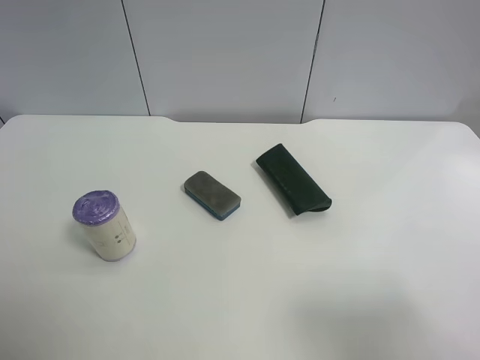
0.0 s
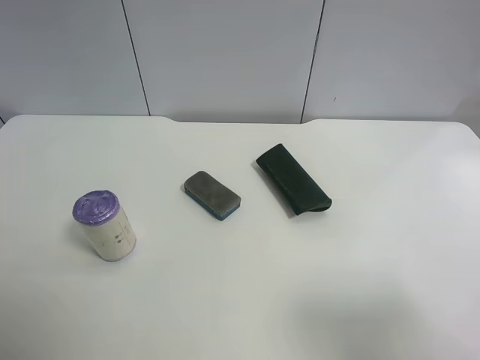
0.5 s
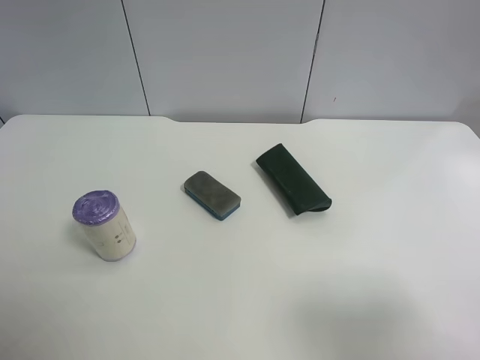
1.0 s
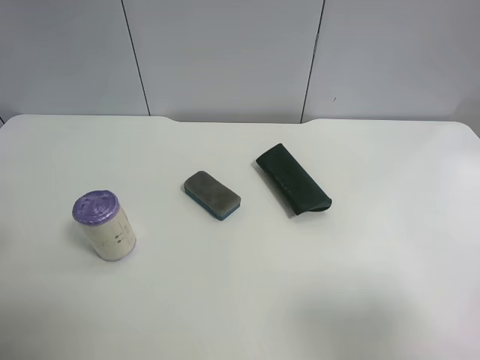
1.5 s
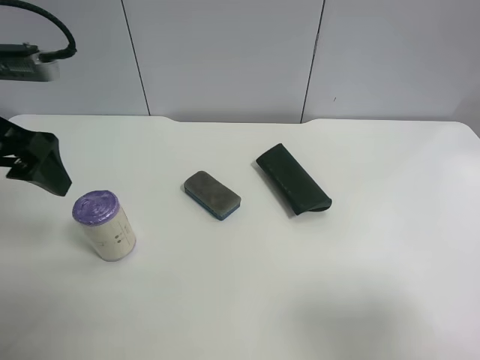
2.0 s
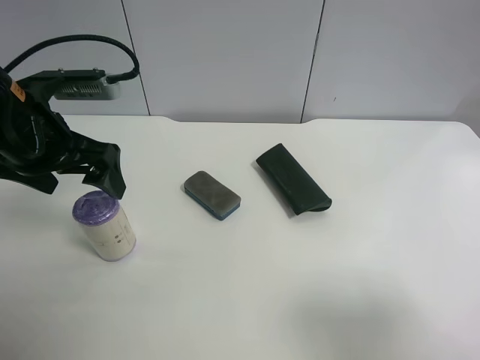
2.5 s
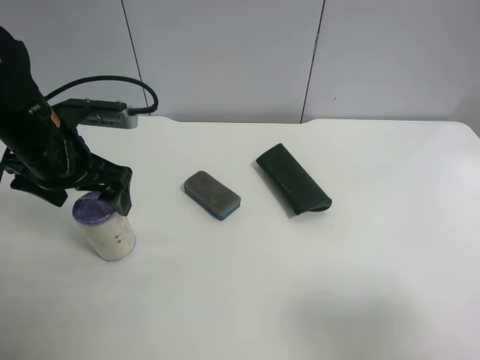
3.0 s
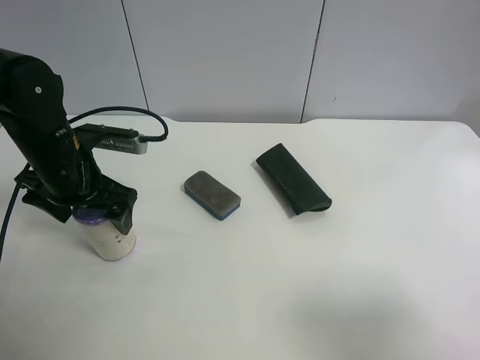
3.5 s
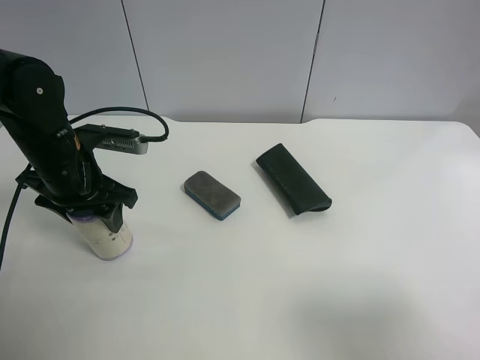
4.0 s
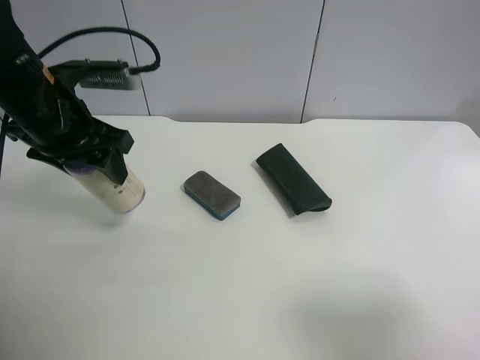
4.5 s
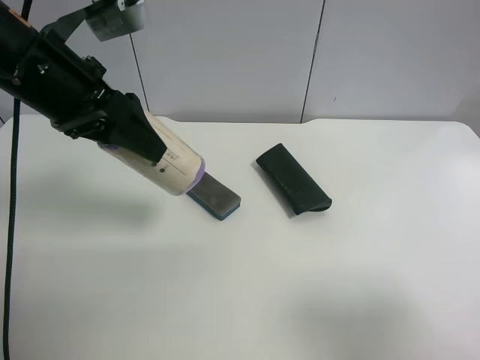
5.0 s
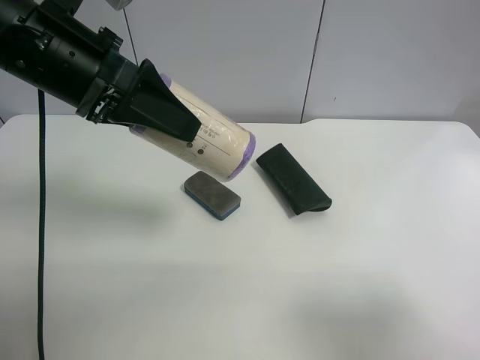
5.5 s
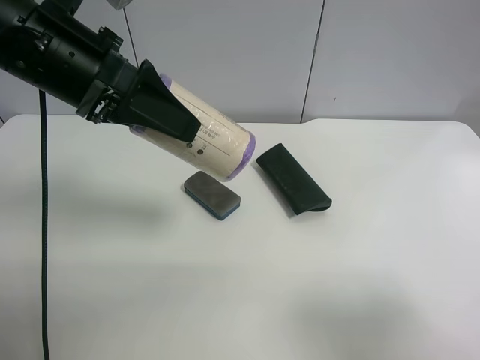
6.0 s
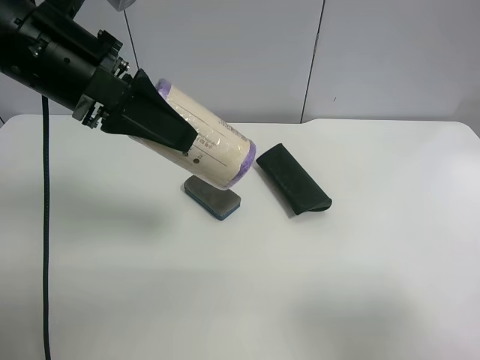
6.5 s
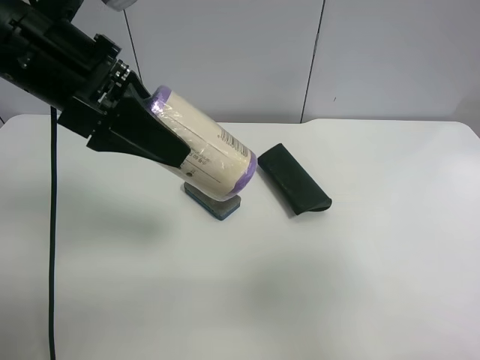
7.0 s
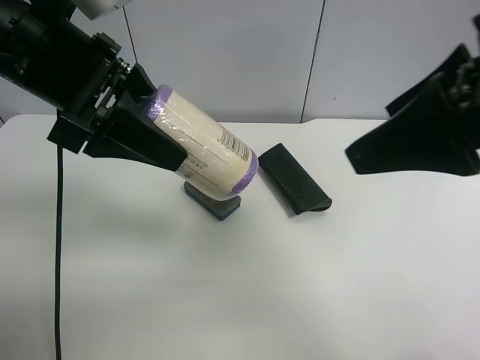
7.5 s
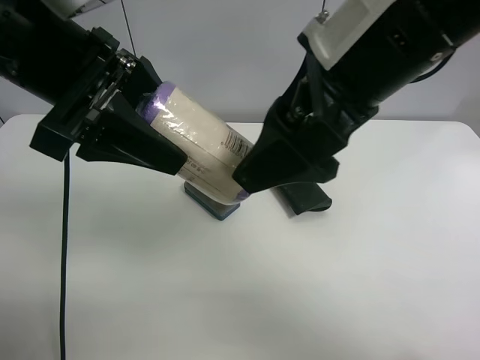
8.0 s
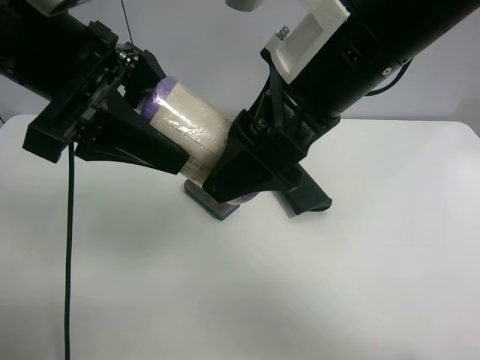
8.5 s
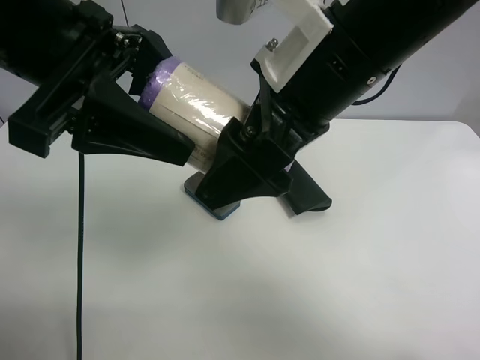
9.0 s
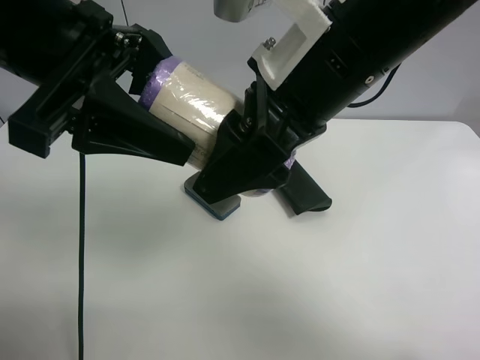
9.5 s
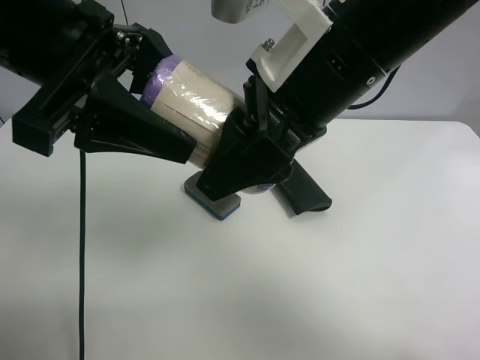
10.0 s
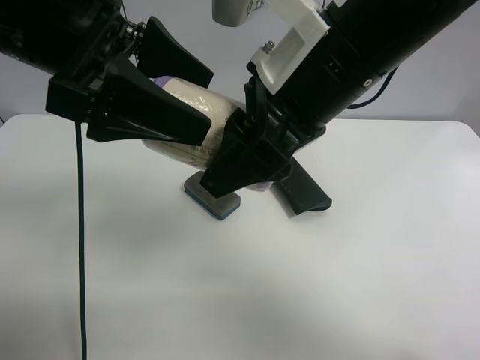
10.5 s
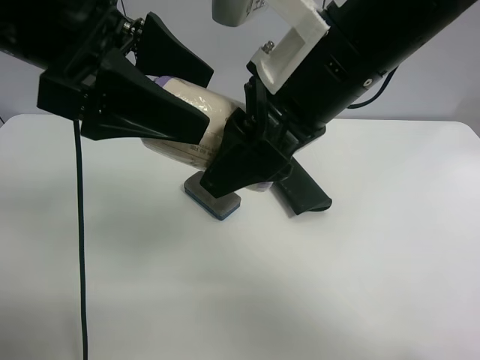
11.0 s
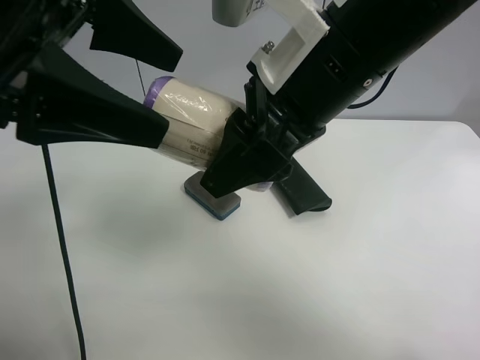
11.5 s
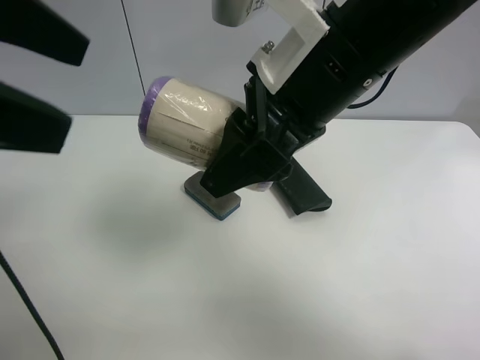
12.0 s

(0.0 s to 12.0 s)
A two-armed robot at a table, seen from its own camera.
Task of the whole recording: use the left gripper to pick up the item and transfer it from the left gripper to the right gripper.
0.0 s - 2.0 s: The left gripper shifts some 20 cm forward.
2.0 s - 4.0 s: The left gripper shifts roughly 15 cm downward and forward, and closes.
4.0 s - 6.0 s: The left gripper moves upward, some 15 cm.
6.0 s - 8.0 s: The right gripper is displaced to the left and forward by approximately 30 cm.
8.0 s - 10.0 s: The right gripper closes up.
10.0 s - 12.0 s: The left gripper goes some 15 cm backward, upward and to the left, and opens.

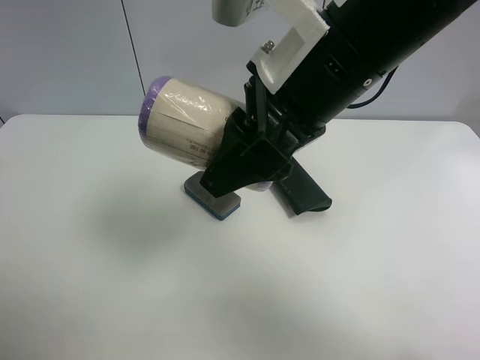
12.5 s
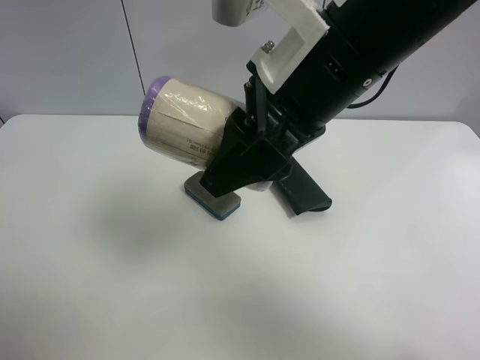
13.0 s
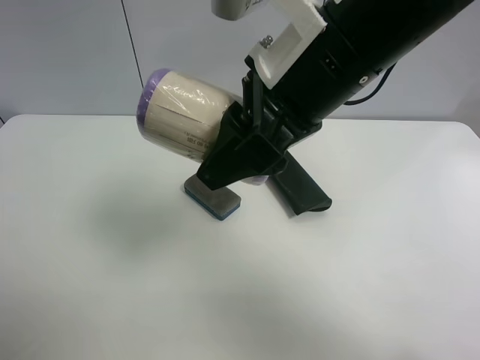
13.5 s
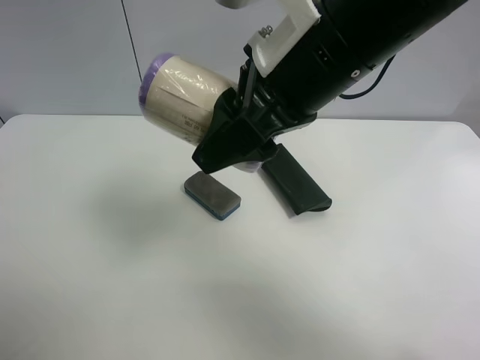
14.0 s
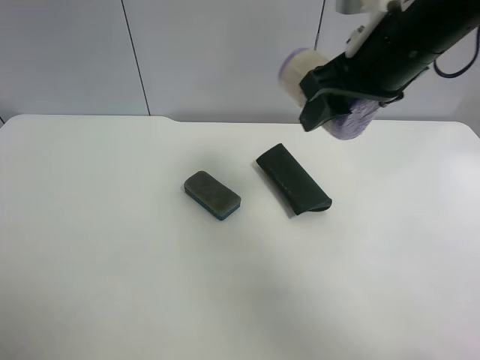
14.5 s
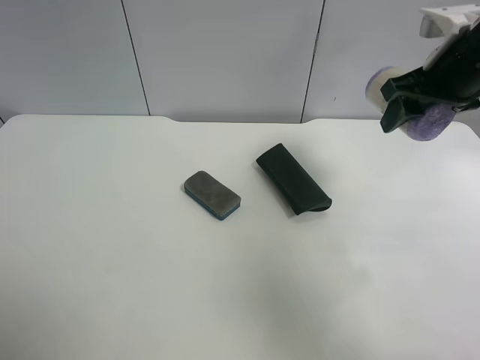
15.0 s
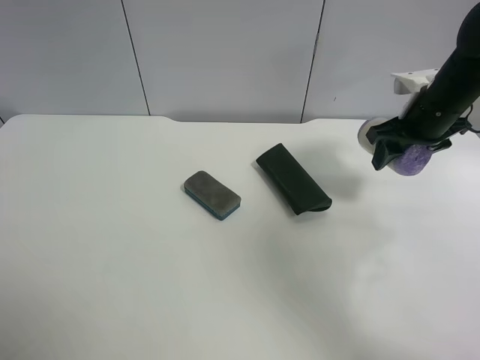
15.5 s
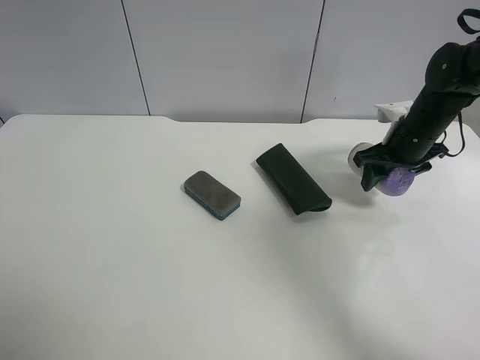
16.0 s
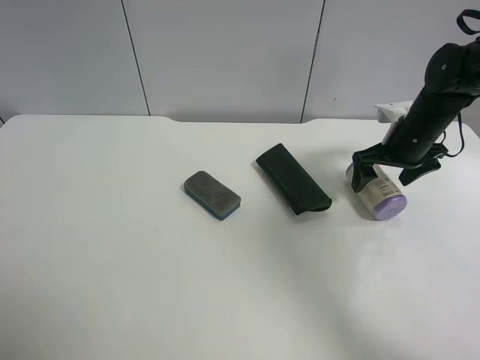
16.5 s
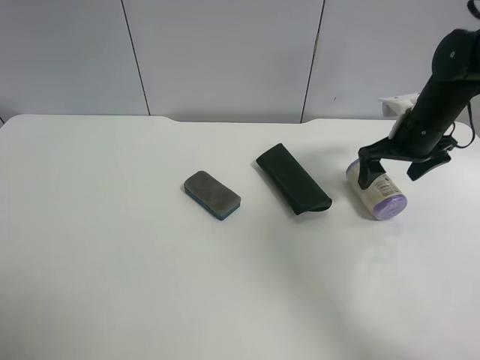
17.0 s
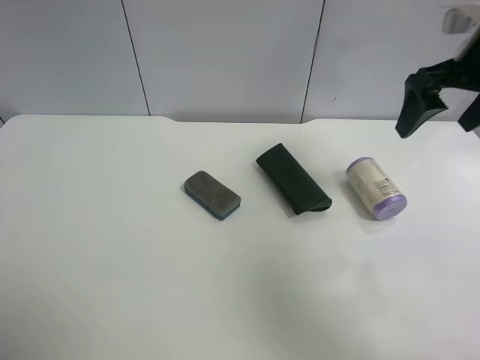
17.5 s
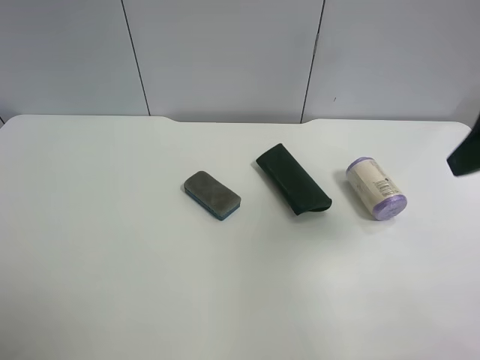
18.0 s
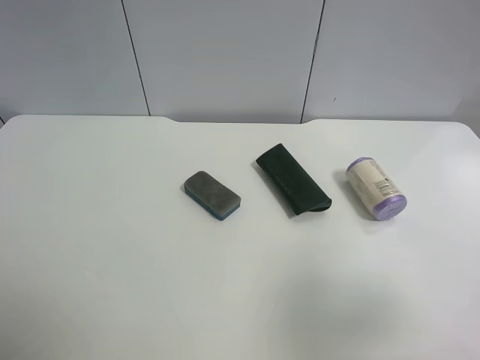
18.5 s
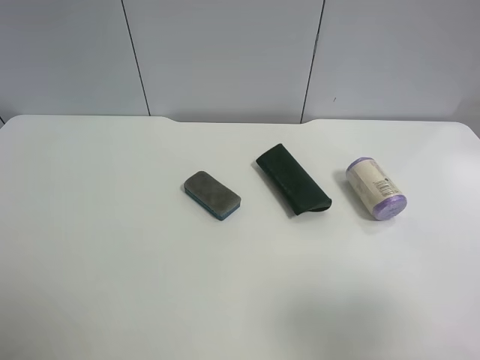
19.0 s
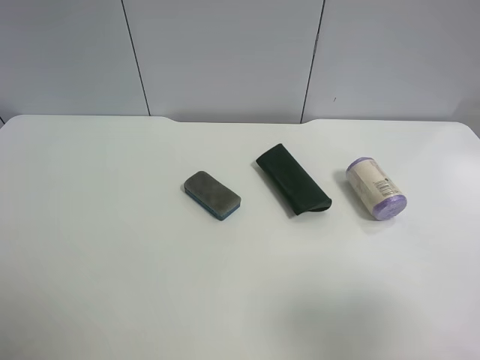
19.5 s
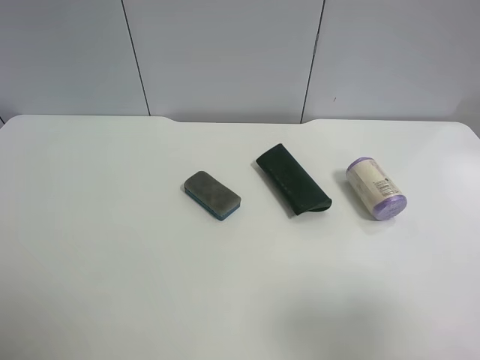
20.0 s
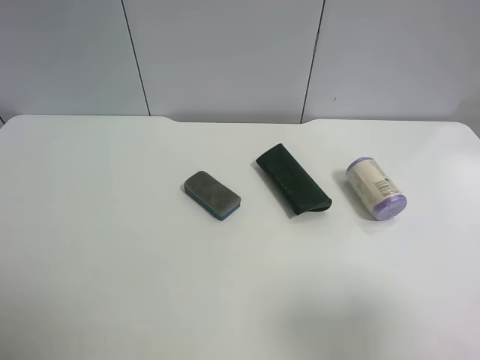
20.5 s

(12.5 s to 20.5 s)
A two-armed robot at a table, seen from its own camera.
Task of the whole recording: use the left gripper to pick up the item and transfer it from the left gripper to the right gripper.
12.5 s - 14.5 s: The left gripper heads backward and downward, covering approximately 10 cm. The right gripper travels to the right and forward by some 10 cm.
14.5 s - 16.5 s: The right gripper is displaced downward, to the right and forward by roughly 25 cm, and opens up.
16.5 s - 18.5 s: The right gripper moves backward and upward, approximately 35 cm.

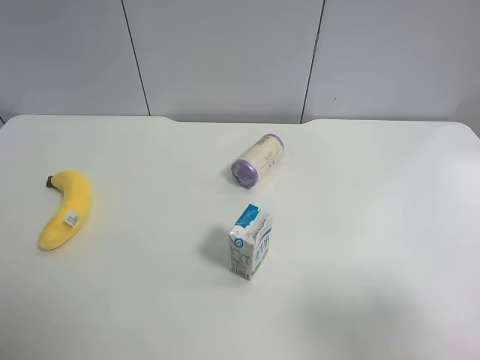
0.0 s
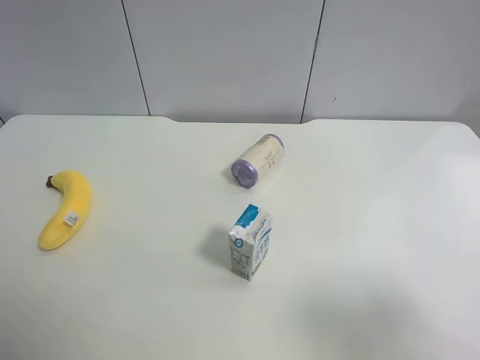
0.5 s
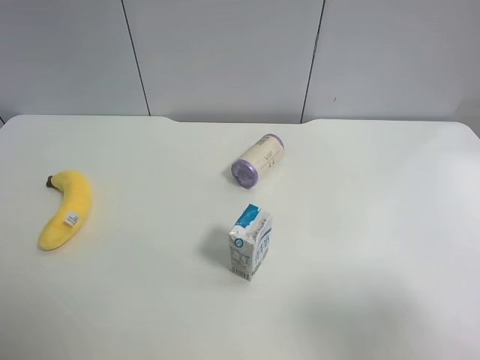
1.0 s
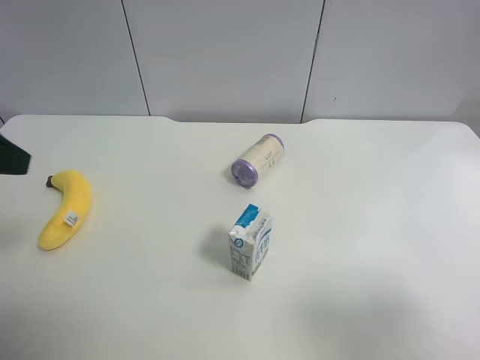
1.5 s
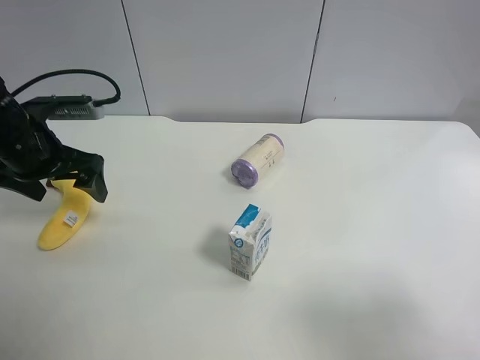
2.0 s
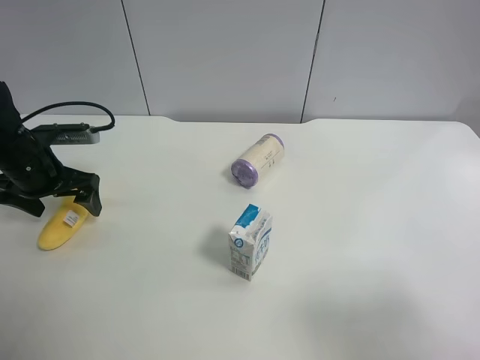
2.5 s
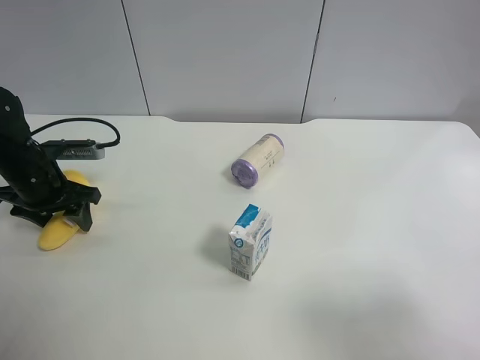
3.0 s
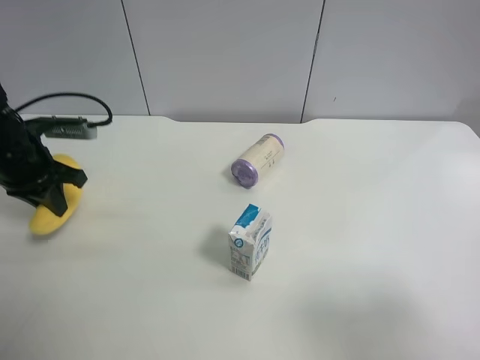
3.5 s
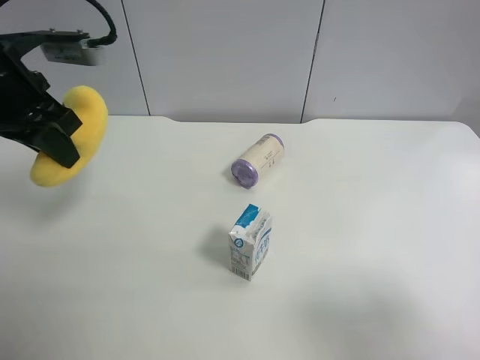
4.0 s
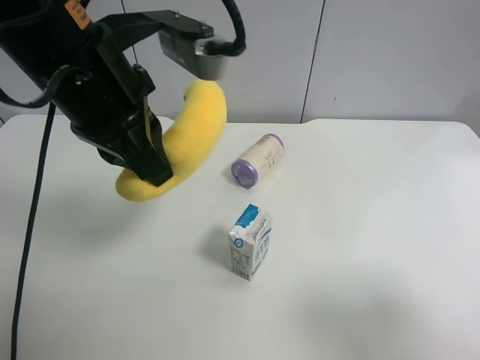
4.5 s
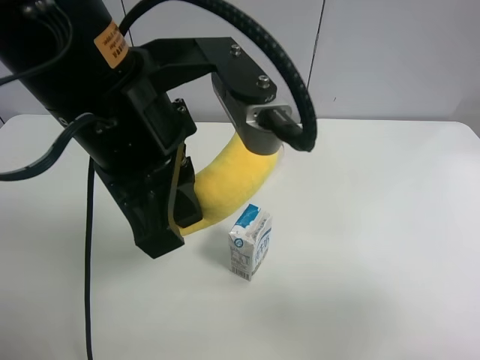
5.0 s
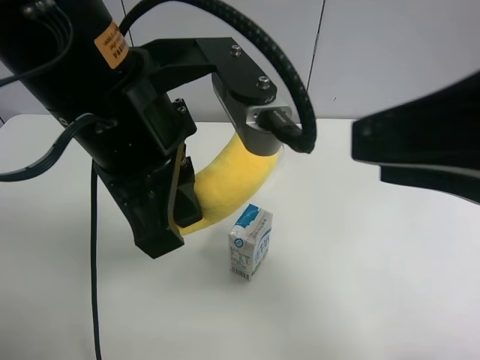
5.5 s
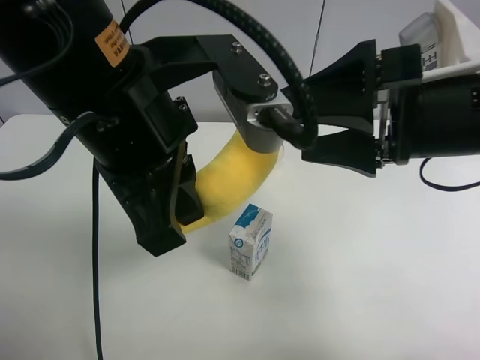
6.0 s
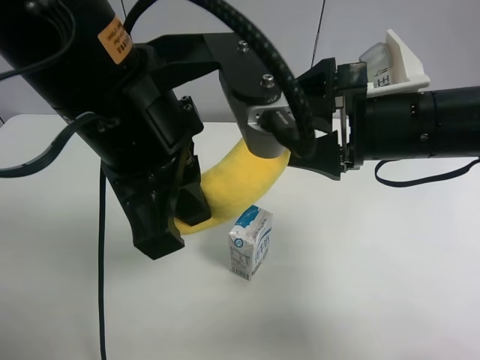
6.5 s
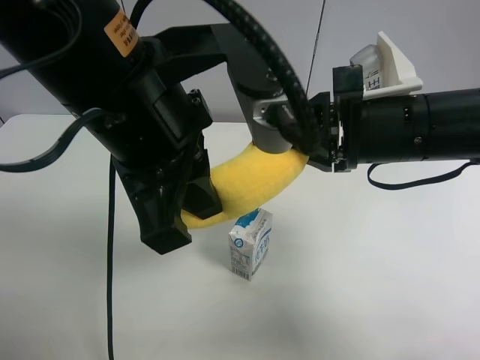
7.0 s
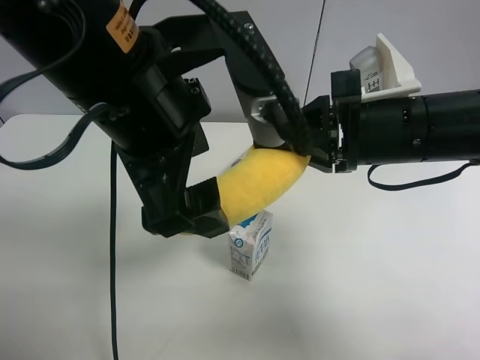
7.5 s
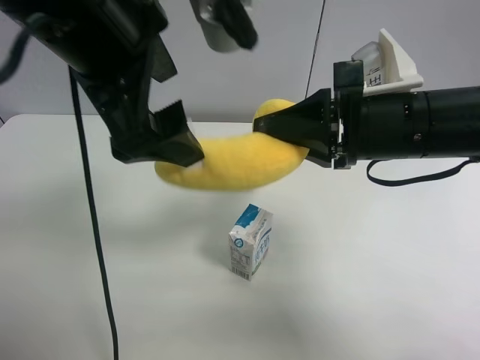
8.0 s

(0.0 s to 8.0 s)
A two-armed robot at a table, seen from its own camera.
Task of the whole recording: use the left gripper to pick up the item and transfer it from the left gripper to the right gripper.
0.0 s - 2.0 s: The left gripper travels forward by approximately 30 cm.
2.0 s - 4.0 s: The left gripper is displaced upward by roughly 10 cm, and closes up.
4.0 s - 6.0 s: The right gripper shifts roughly 25 cm forward and to the left, while the left gripper goes approximately 20 cm to the right and backward.
6.0 s - 8.0 s: The right gripper closes its fingers; the left gripper moves upward, about 5 cm, and opens.
